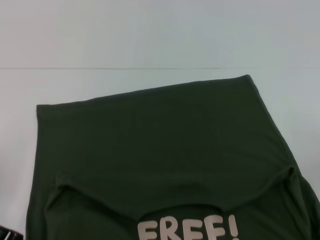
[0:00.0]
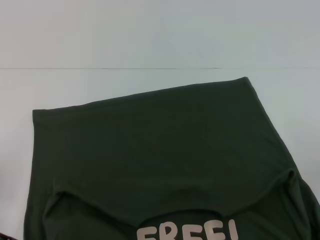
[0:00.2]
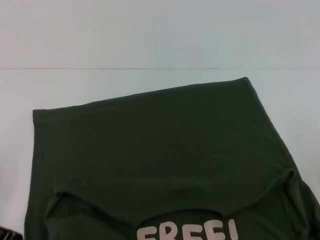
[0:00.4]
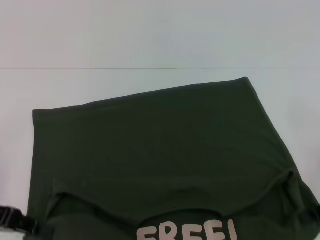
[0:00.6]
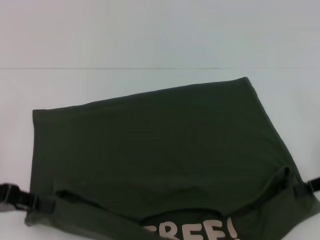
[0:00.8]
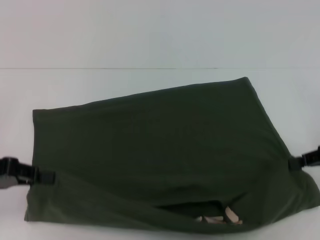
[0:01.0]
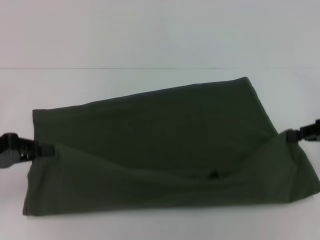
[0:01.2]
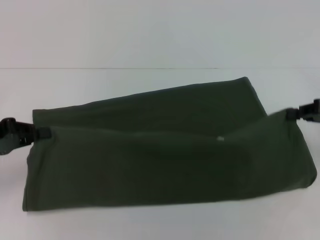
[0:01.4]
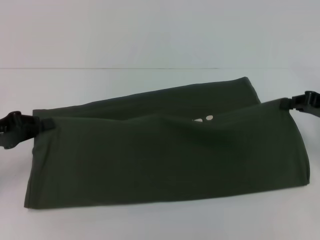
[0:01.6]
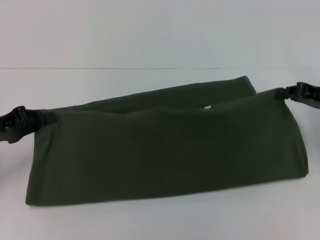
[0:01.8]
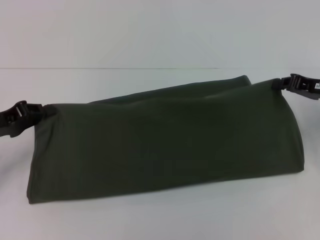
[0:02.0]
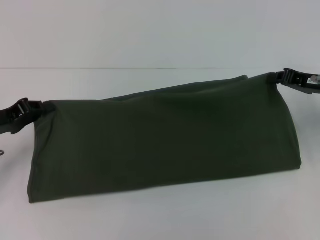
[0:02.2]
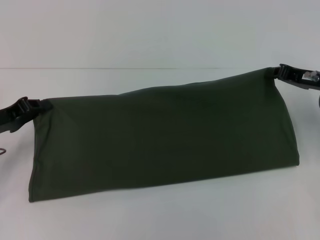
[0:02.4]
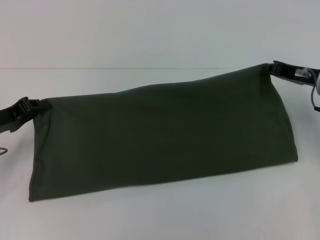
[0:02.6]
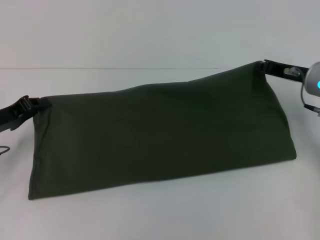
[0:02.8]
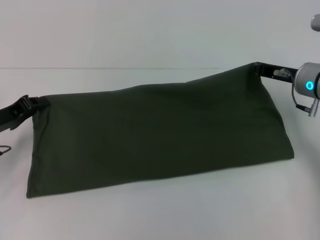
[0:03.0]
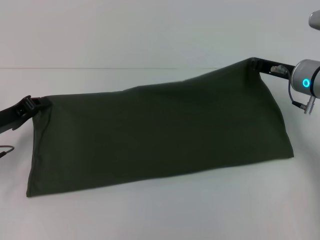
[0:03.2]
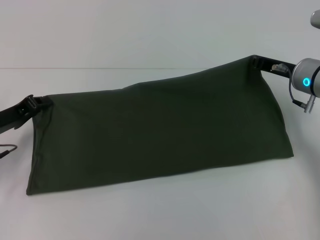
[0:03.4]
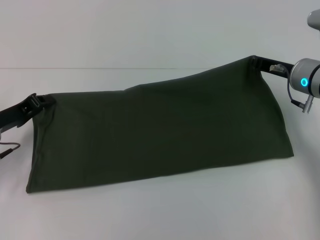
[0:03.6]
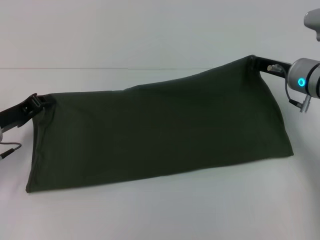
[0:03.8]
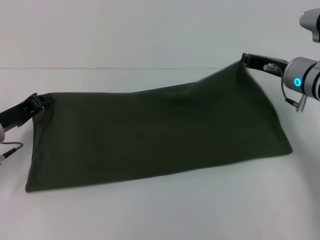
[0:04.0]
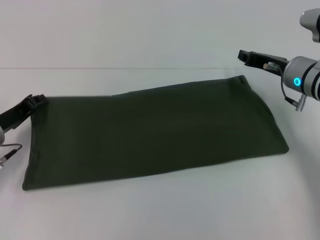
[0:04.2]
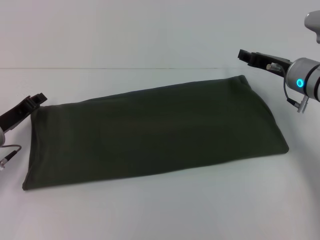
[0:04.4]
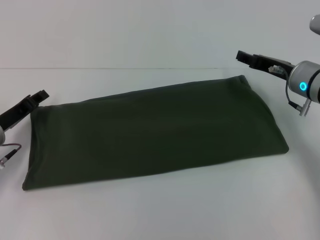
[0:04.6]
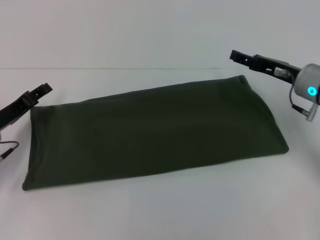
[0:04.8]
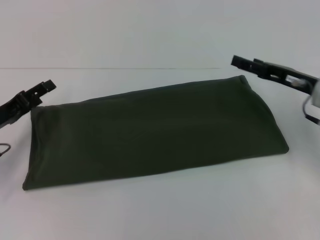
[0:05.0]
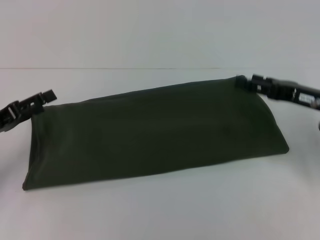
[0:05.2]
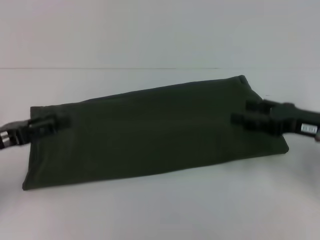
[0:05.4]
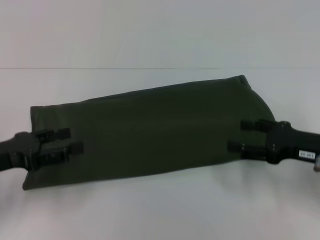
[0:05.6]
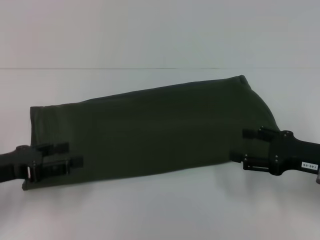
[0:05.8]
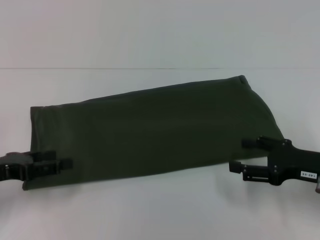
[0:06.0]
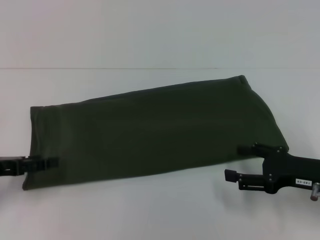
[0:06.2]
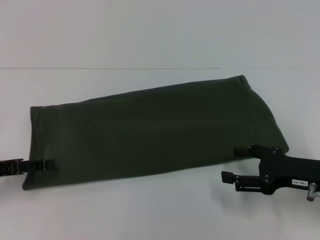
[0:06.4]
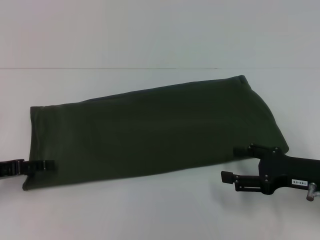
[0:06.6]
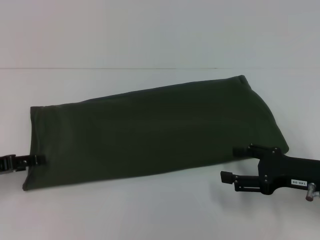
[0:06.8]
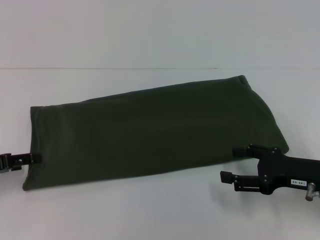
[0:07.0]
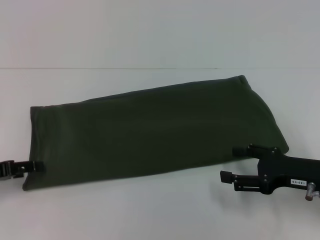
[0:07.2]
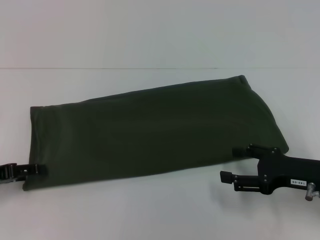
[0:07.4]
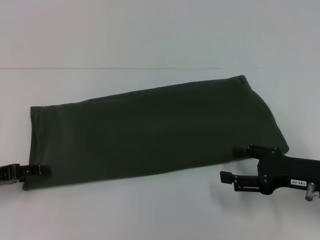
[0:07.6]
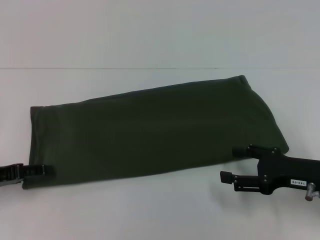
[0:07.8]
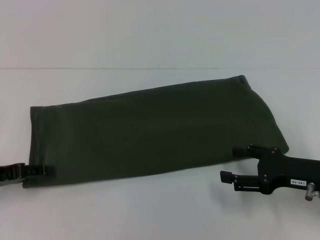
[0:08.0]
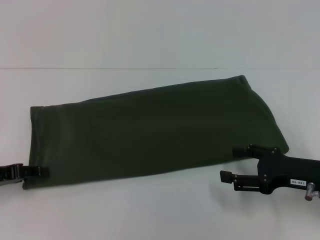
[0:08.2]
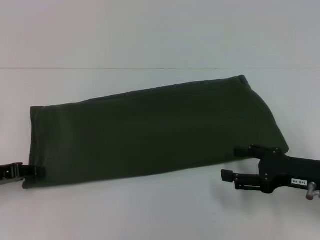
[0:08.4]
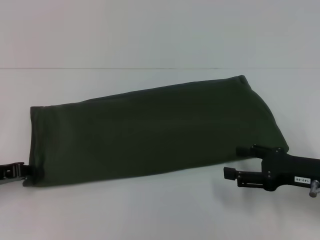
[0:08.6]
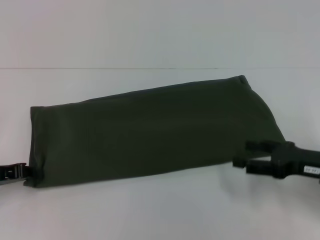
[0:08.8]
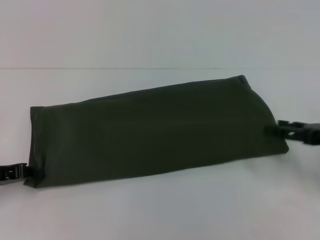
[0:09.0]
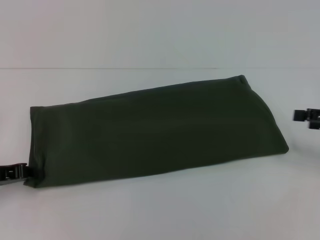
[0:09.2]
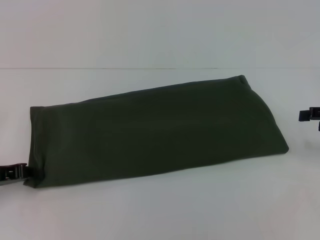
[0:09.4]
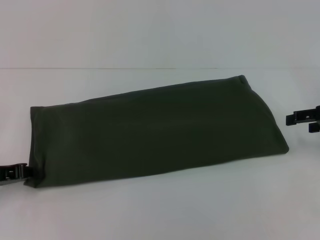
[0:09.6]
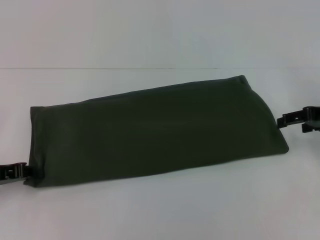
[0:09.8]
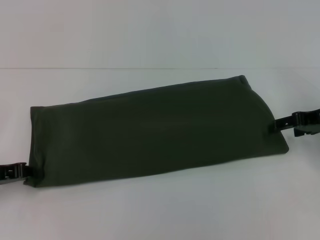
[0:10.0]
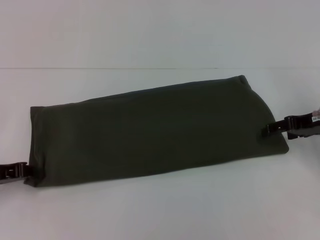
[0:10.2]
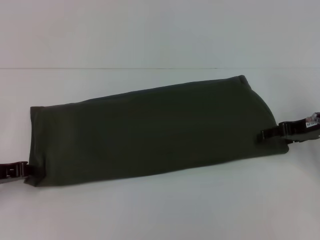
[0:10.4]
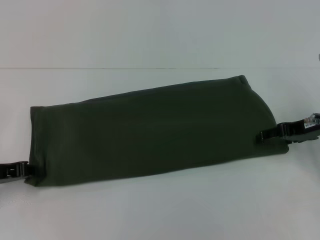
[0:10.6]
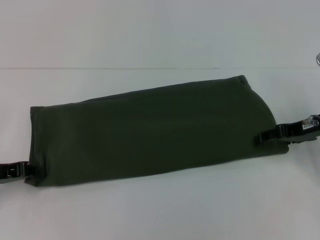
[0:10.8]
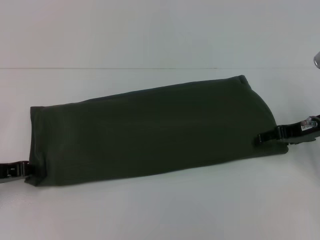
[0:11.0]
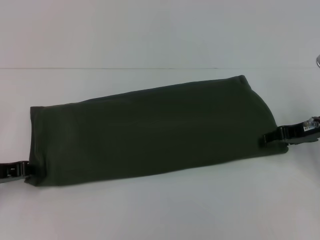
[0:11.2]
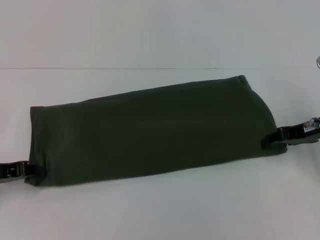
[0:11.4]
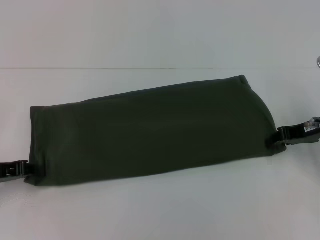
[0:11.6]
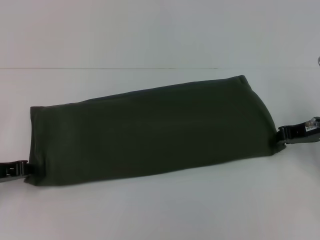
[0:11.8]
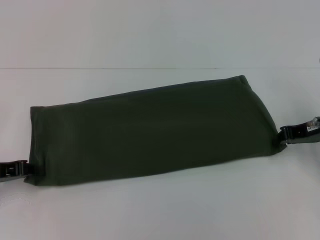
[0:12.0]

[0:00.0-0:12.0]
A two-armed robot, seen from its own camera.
Step, 0:00.6 to 0:04.6: Fold the clothes with your right hand.
0:00.0 to 0:01.6: The right gripper heads forward, covering approximately 10 cm; the left gripper ends up roughly 5 cm from where it was.
0:01.6 to 0:03.0: The left gripper moves roughly 5 cm. Meanwhile the right gripper goes approximately 10 cm to the left and forward.
0:03.0 to 0:04.4: The grippers move only a little.
0:04.4 to 0:06.0: The left gripper heads backward, covering roughly 10 cm, and opens up, while the right gripper is displaced backward by roughly 15 cm, and opens up.
0:07.6 to 0:09.0: The right gripper is displaced to the right by some 5 cm.
0:09.0 to 0:10.4: The right gripper heads forward, covering about 10 cm.
0:10.4 to 0:12.0: The right gripper closes up.

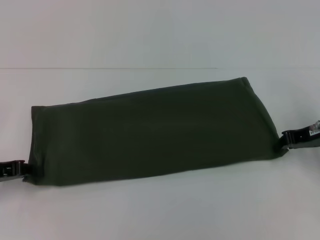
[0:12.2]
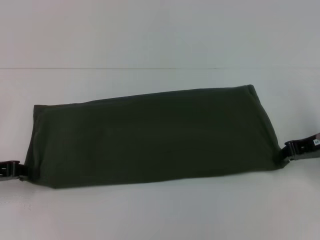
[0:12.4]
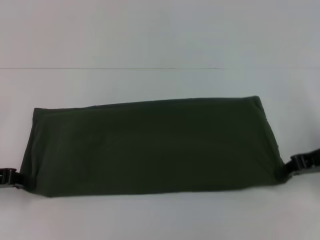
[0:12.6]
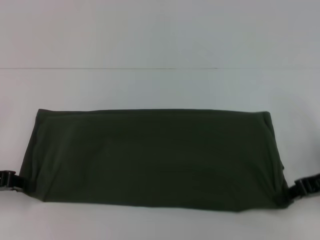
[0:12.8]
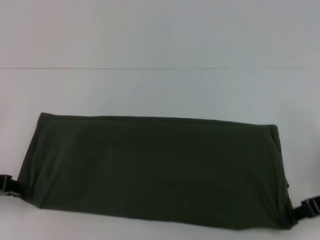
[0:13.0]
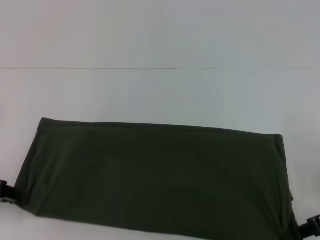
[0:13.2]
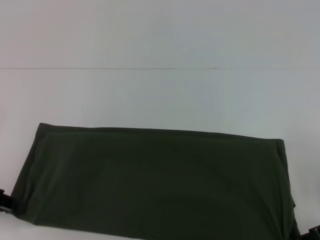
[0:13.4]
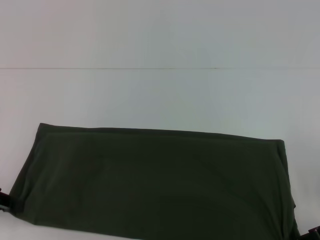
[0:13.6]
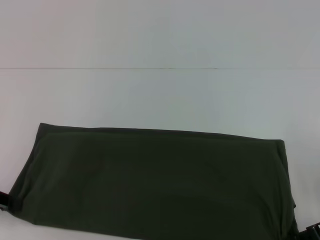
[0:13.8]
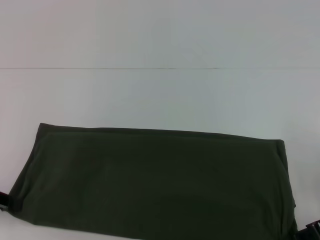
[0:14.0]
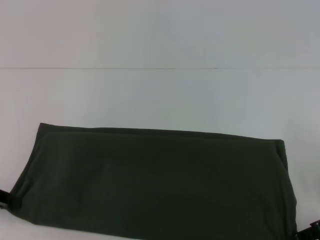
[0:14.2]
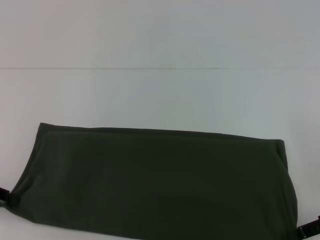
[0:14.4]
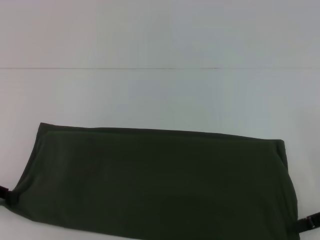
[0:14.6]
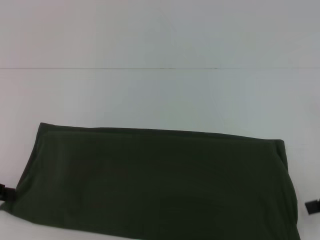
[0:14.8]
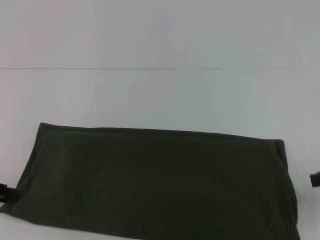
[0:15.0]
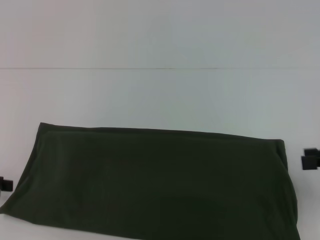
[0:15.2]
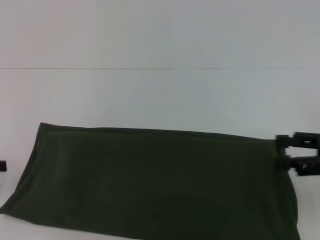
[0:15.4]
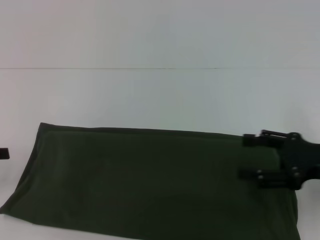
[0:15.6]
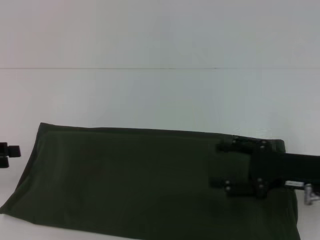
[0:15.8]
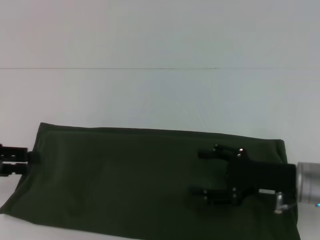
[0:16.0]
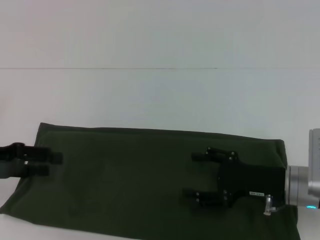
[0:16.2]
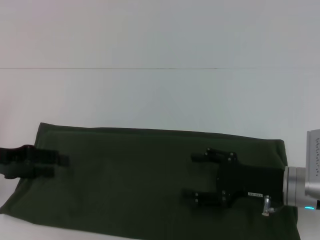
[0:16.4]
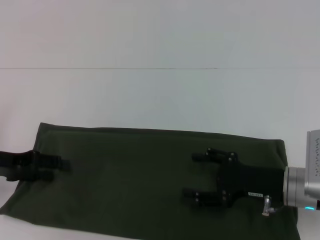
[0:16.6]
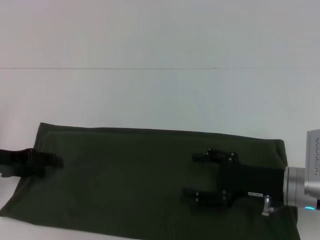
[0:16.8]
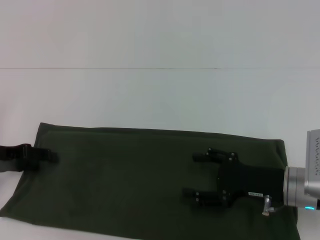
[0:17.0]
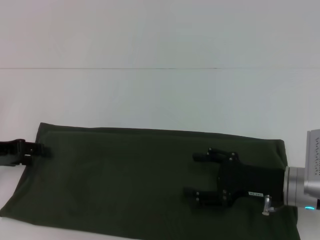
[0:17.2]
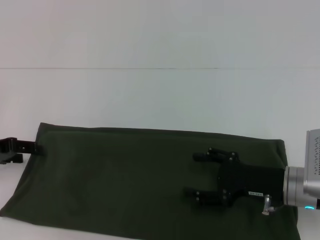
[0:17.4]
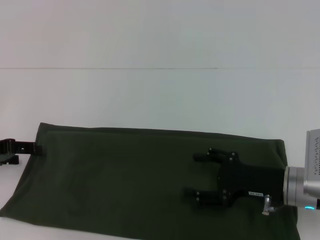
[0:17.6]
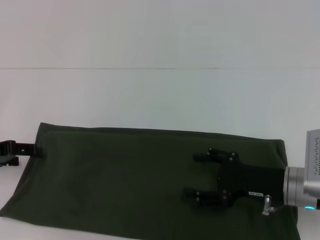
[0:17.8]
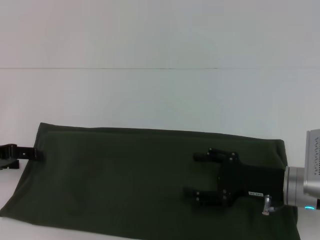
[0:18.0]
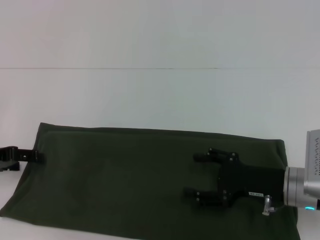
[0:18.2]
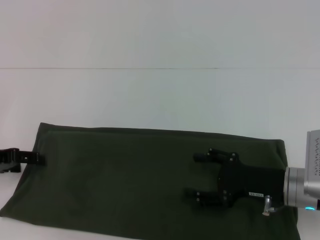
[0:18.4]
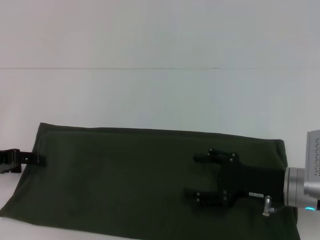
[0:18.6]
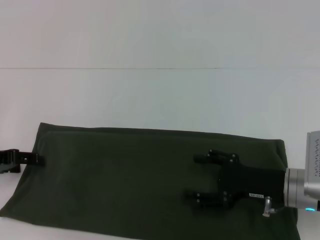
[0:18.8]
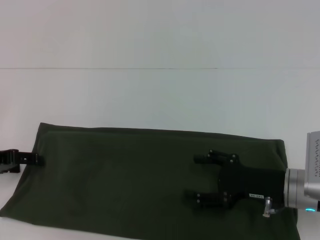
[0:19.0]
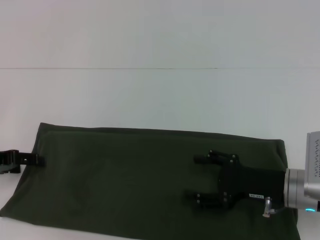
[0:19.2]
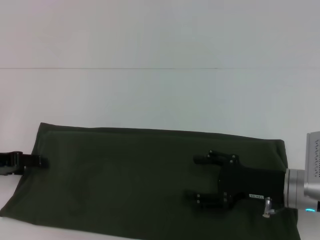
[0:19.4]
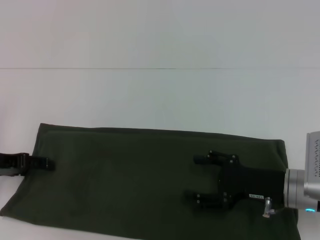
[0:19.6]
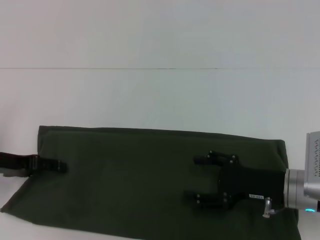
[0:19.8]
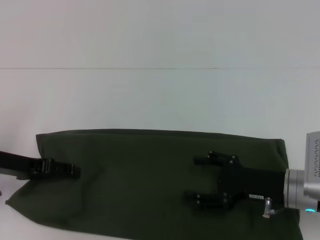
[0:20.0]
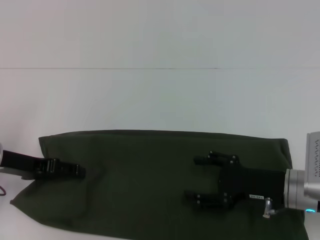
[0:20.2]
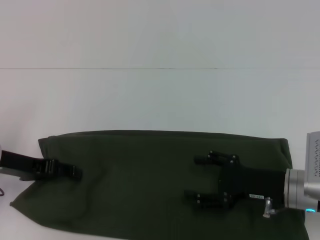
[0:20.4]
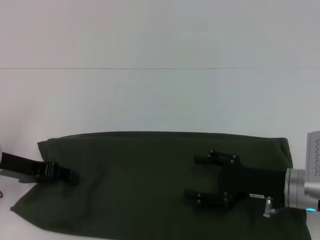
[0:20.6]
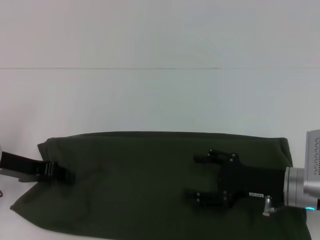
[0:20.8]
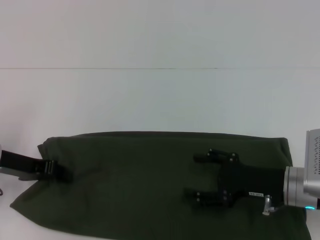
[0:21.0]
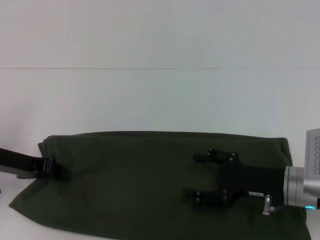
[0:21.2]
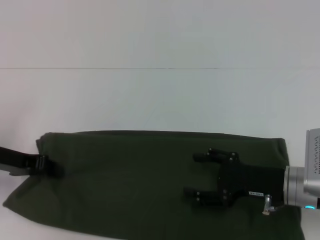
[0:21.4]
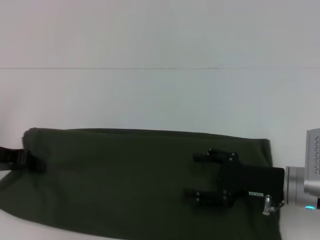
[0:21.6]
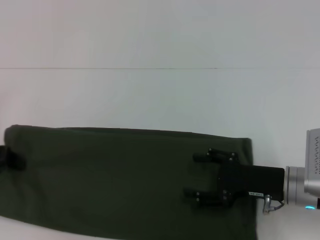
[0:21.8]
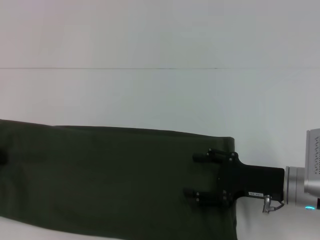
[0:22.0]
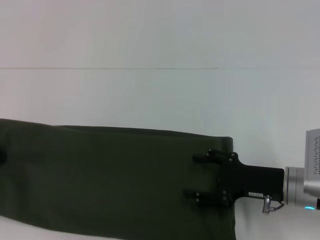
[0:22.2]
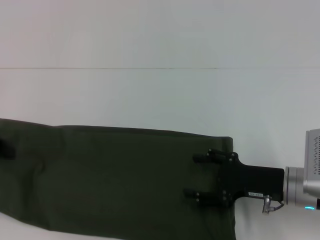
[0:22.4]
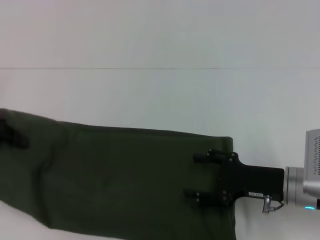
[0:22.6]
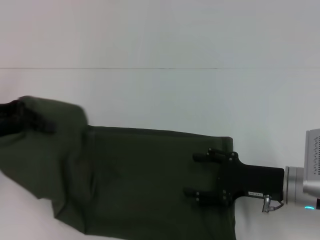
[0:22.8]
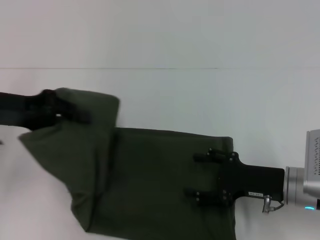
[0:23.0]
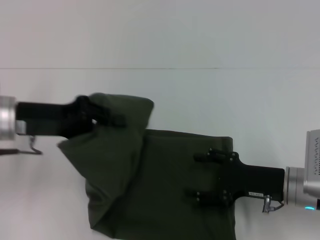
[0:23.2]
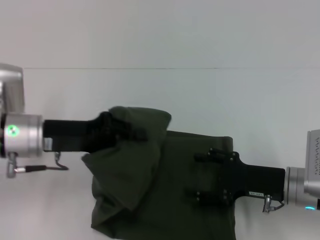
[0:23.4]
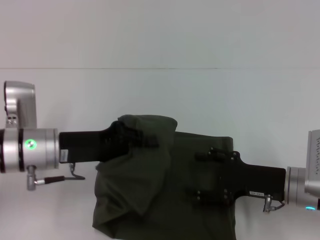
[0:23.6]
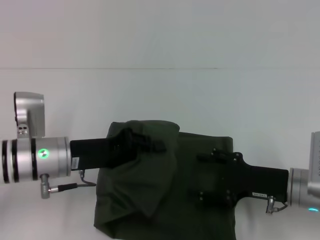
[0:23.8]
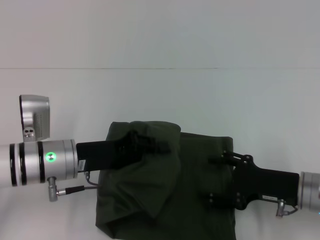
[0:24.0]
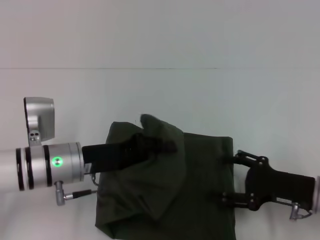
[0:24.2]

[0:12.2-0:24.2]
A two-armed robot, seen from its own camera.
0:12.2 to 0:13.8: The right gripper is displaced backward by some 10 cm.
0:13.8 to 0:15.2: The right gripper moves upward, about 5 cm, and opens.
0:15.2 to 0:16.6: The left gripper travels to the right by about 5 cm, and opens. The right gripper heads to the left and downward, covering approximately 20 cm.
0:16.6 to 0:19.8: There are only small adjustments of the grippers.
0:19.8 to 0:21.2: The left gripper closes up.
0:21.2 to 0:22.6: The left gripper heads upward and to the left, covering roughly 10 cm.
0:22.6 to 0:24.2: The left gripper heads to the right and downward, covering some 20 cm.
